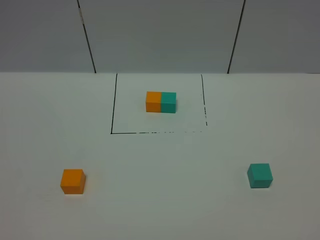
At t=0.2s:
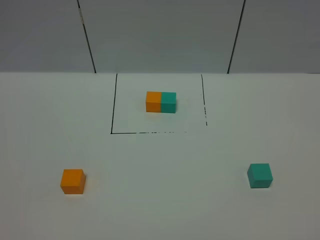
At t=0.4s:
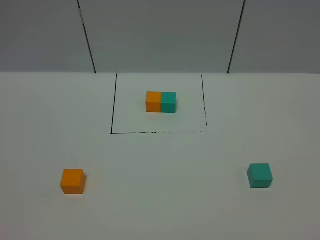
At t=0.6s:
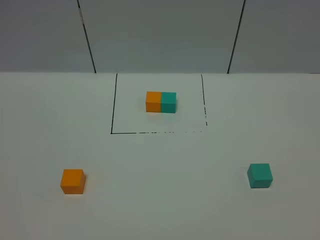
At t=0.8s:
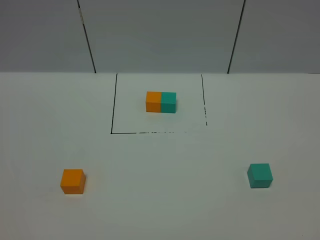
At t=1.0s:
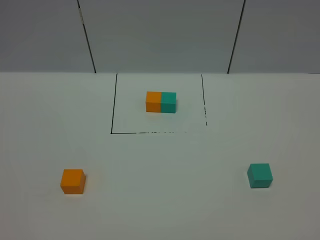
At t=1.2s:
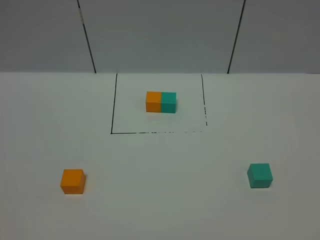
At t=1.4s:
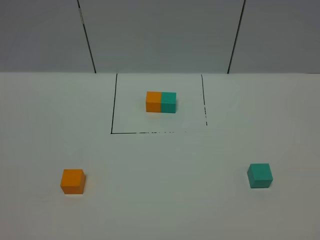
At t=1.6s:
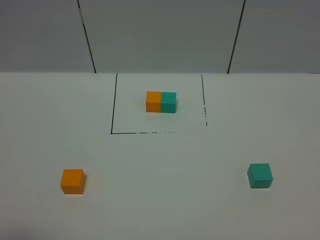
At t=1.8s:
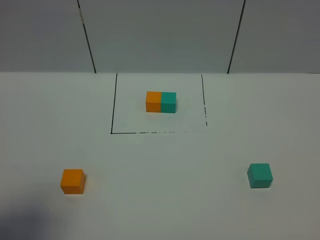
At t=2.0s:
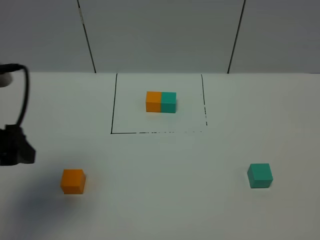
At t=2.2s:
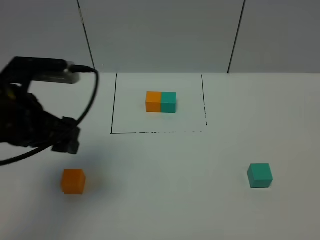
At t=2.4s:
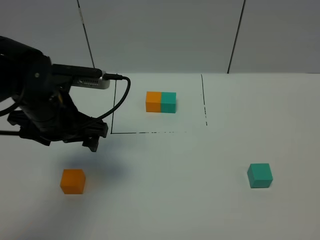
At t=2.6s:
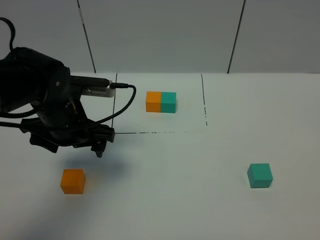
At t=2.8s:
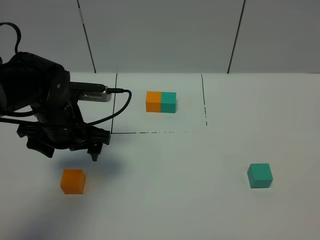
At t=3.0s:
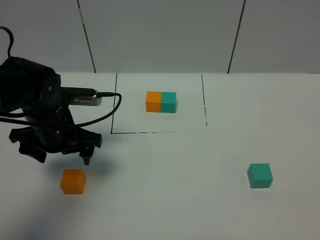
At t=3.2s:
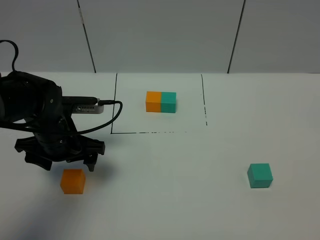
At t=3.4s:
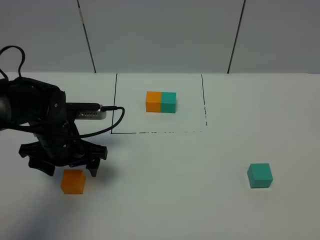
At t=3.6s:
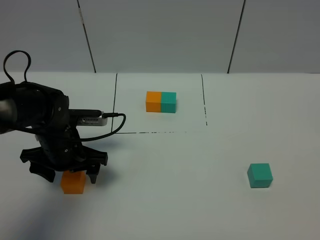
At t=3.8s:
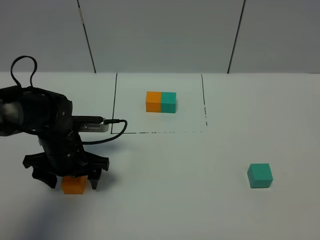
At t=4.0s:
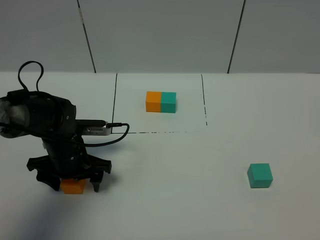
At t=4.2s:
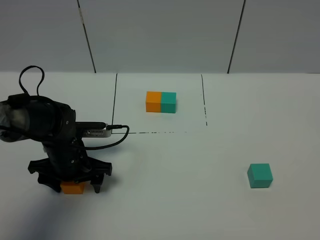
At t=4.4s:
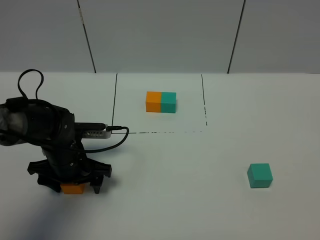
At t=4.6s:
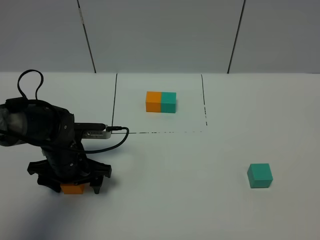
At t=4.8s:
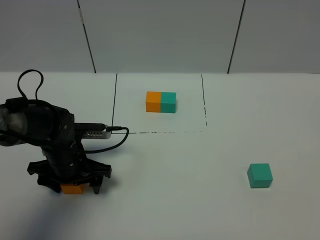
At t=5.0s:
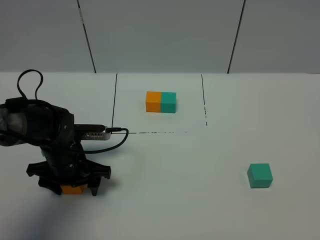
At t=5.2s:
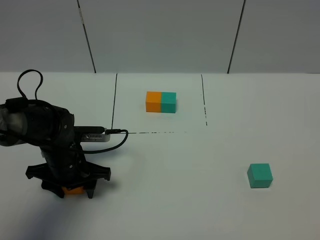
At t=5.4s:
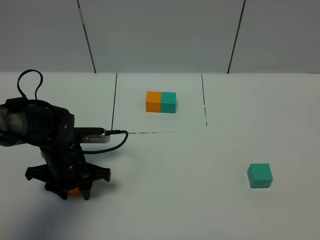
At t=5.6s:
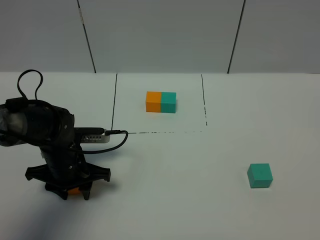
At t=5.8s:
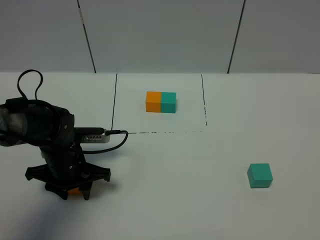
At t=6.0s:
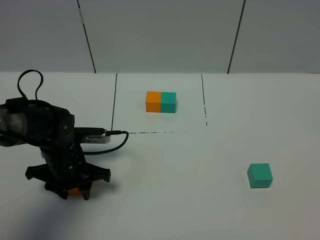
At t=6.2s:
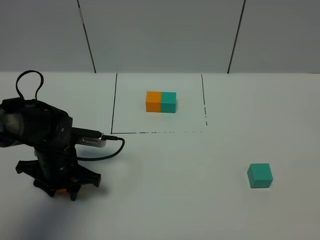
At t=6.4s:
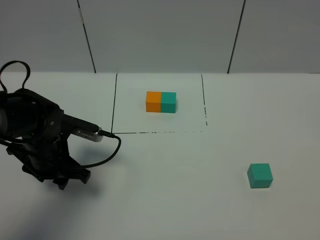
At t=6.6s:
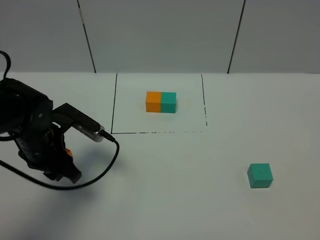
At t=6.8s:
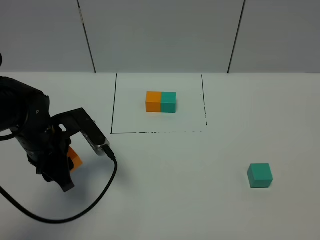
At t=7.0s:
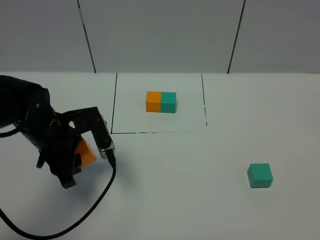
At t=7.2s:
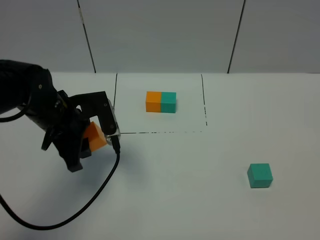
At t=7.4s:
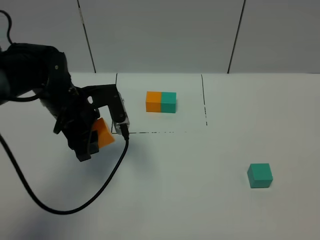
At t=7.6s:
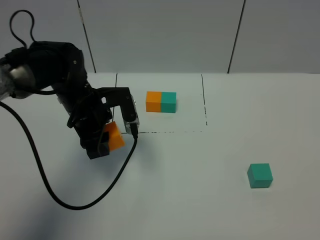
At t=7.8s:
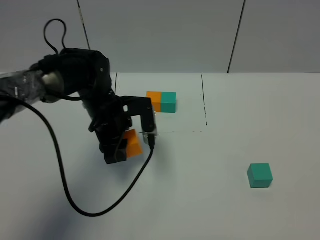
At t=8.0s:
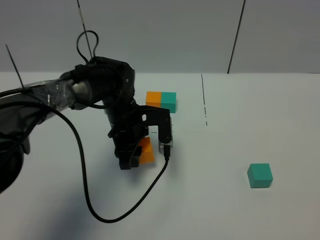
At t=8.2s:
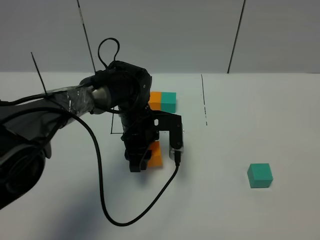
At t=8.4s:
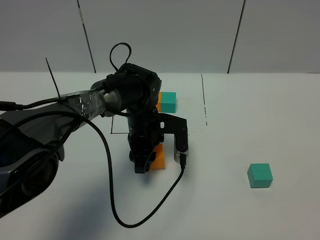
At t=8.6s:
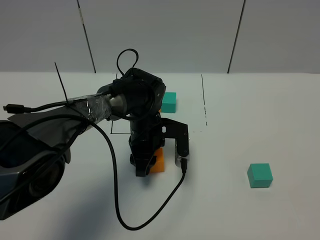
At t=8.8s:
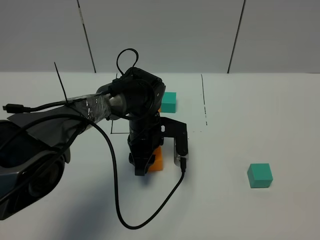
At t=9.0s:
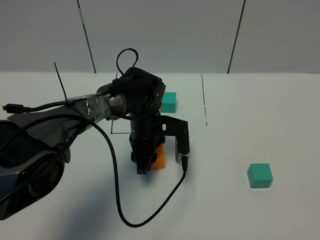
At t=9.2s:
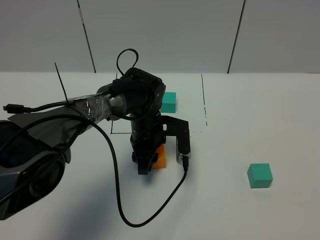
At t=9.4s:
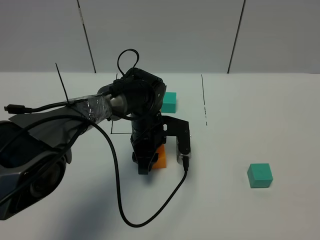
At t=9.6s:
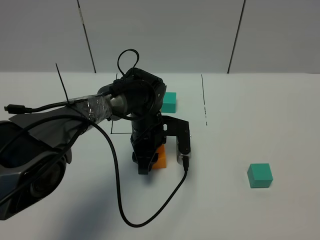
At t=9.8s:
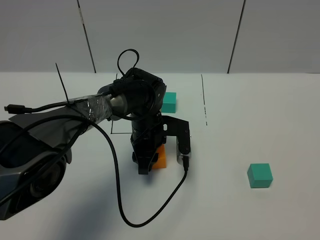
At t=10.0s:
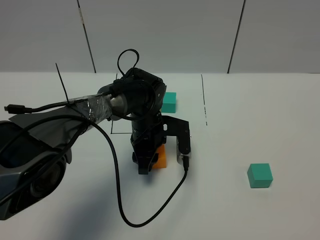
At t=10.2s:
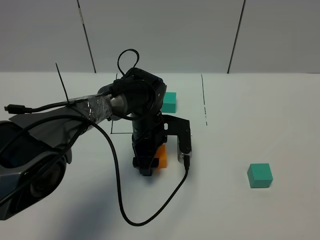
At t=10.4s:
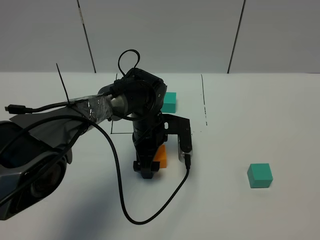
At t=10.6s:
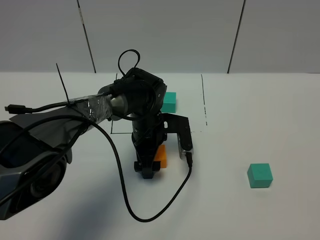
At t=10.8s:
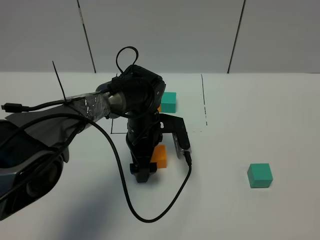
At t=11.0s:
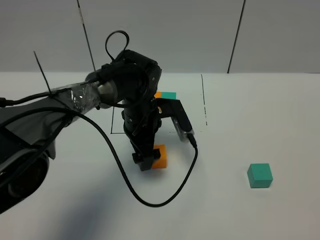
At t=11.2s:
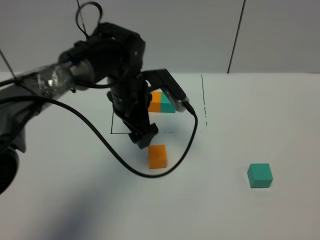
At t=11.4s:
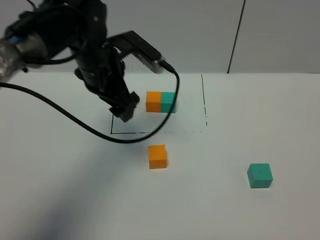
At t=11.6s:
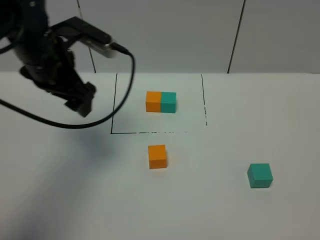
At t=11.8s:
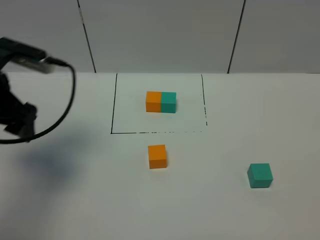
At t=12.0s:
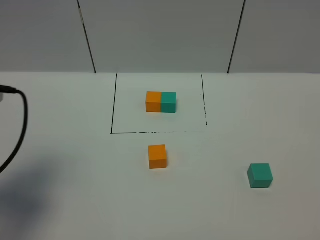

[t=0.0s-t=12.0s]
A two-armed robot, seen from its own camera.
Task of the whole recording: According to the building block template in front, assemble the scattered blocks together.
Step, t=1.8s to t=10.8s: Put the orange cube in the center of the table.
t=1.6s to t=3.0s: The left gripper shifts roughly 30 cm forward and downward.
t=3.0s to t=4.4s: The left gripper shifts about 10 cm downward.
t=4.4s to t=6.0s: The left gripper closes.
t=6.0s to t=7.6s: The left gripper shifts about 10 cm upward and forward.
t=7.6s to t=9.0s: The left gripper goes some 15 cm to the right and downward.
t=9.0s to t=10.4s: The left gripper opens.
t=10.4s to t=12.0s: The left gripper heads to the left, upward and backward, covering about 40 cm.

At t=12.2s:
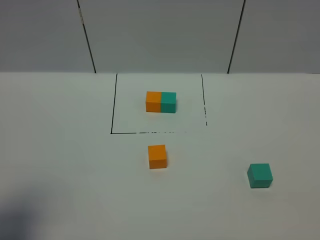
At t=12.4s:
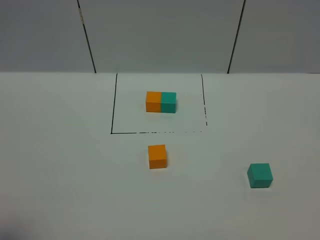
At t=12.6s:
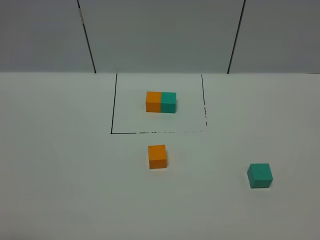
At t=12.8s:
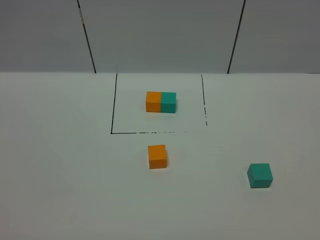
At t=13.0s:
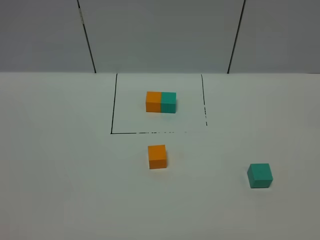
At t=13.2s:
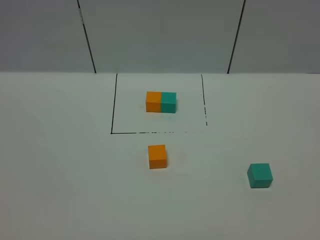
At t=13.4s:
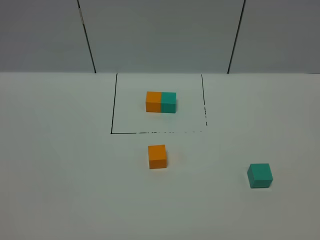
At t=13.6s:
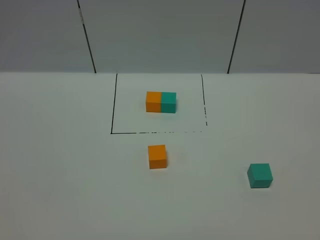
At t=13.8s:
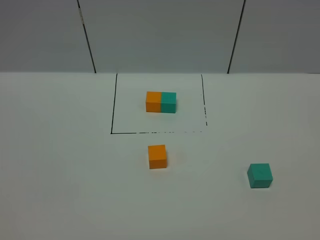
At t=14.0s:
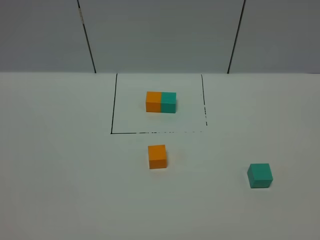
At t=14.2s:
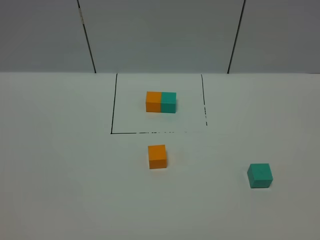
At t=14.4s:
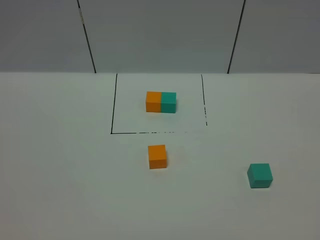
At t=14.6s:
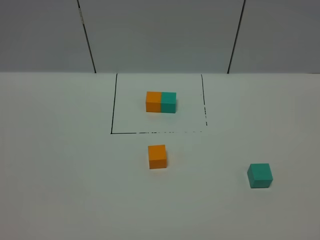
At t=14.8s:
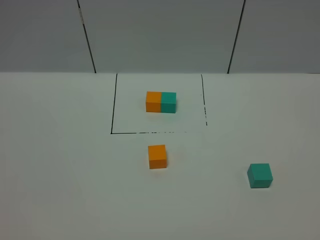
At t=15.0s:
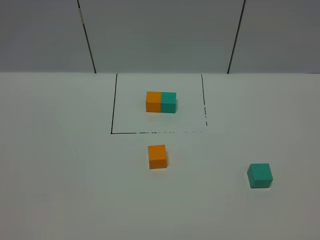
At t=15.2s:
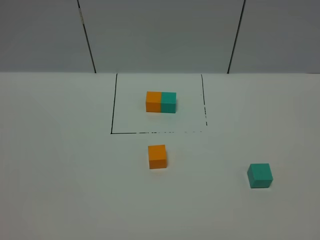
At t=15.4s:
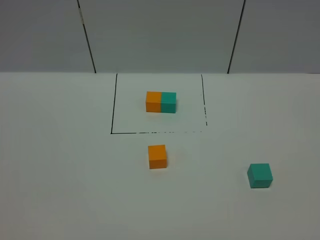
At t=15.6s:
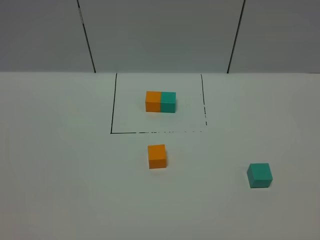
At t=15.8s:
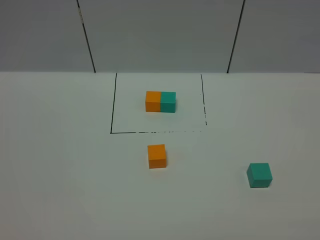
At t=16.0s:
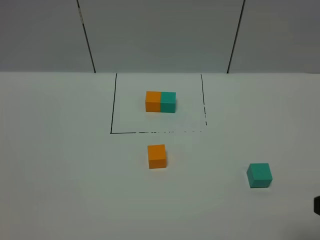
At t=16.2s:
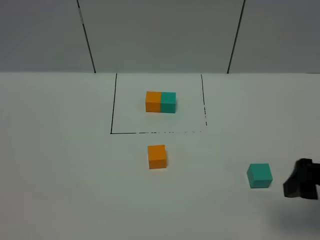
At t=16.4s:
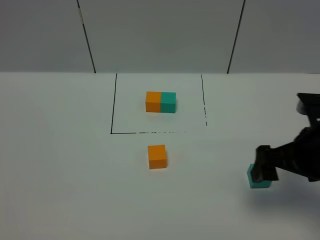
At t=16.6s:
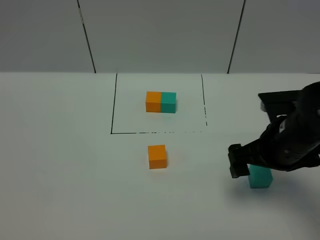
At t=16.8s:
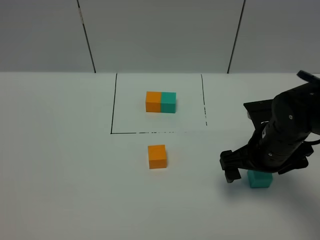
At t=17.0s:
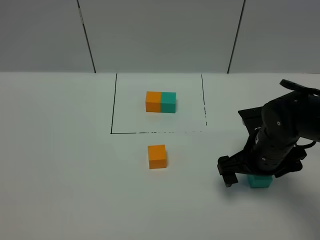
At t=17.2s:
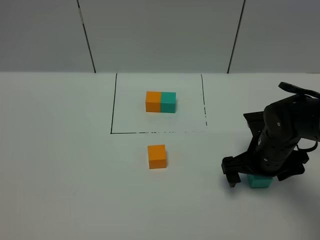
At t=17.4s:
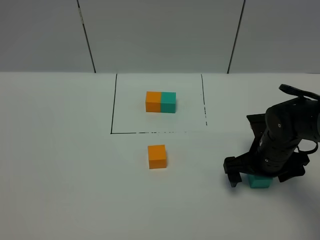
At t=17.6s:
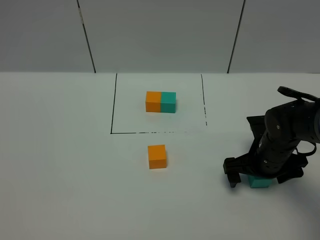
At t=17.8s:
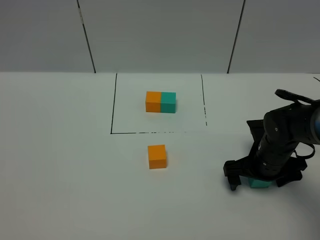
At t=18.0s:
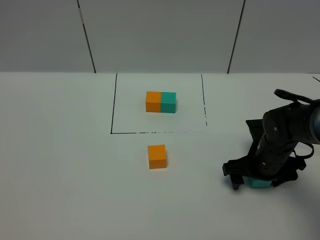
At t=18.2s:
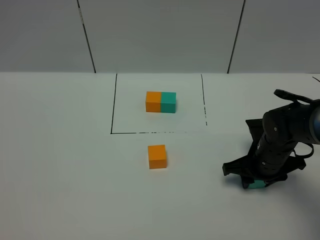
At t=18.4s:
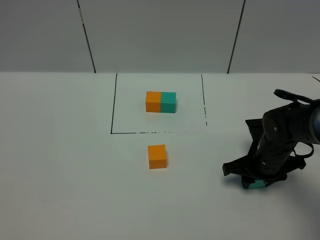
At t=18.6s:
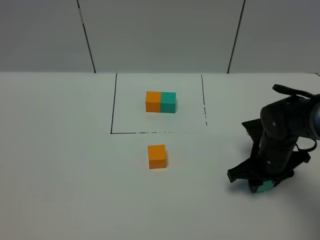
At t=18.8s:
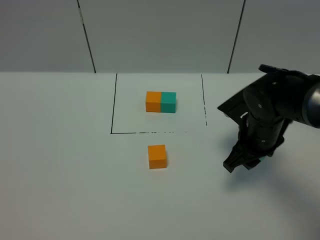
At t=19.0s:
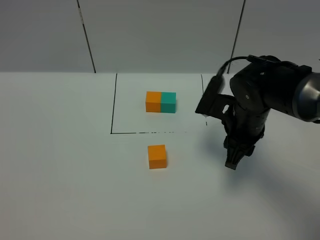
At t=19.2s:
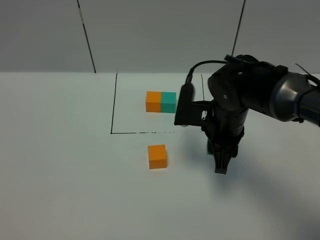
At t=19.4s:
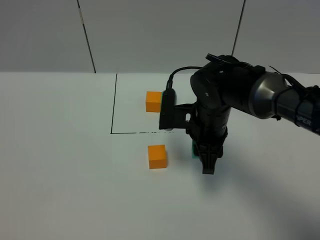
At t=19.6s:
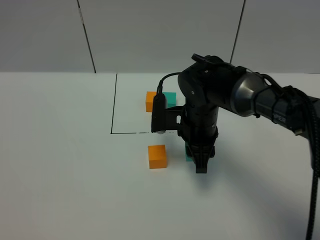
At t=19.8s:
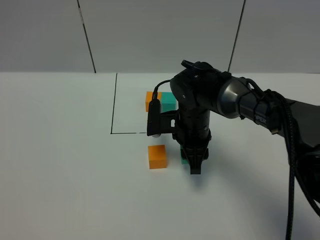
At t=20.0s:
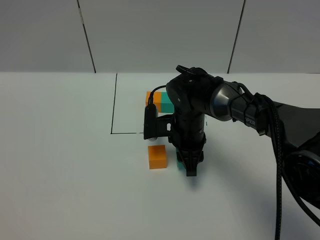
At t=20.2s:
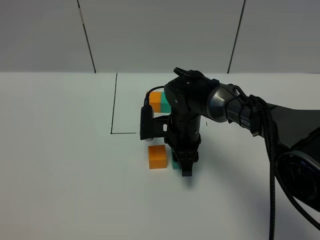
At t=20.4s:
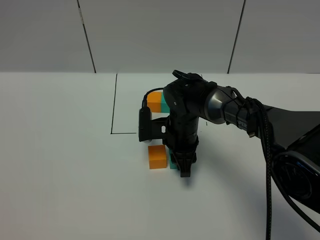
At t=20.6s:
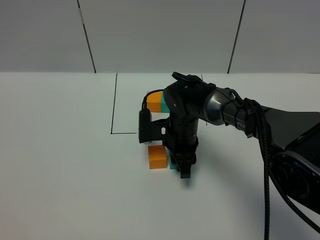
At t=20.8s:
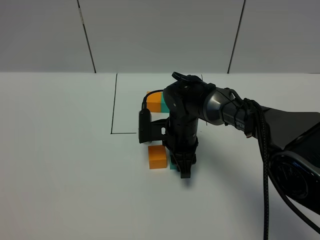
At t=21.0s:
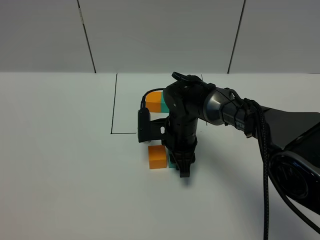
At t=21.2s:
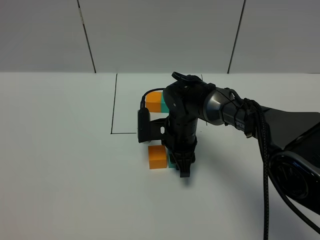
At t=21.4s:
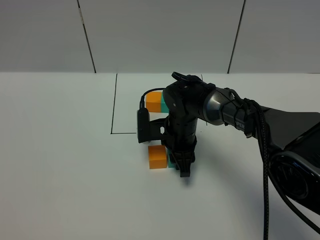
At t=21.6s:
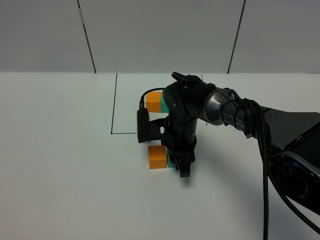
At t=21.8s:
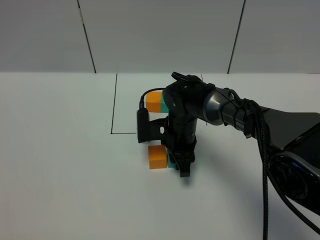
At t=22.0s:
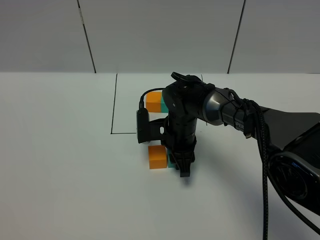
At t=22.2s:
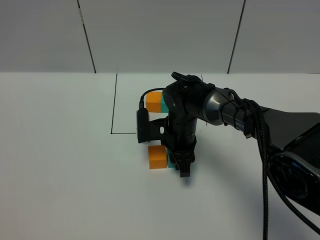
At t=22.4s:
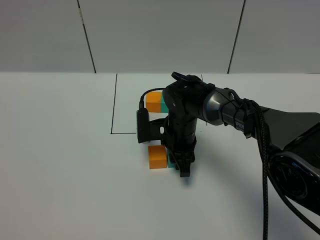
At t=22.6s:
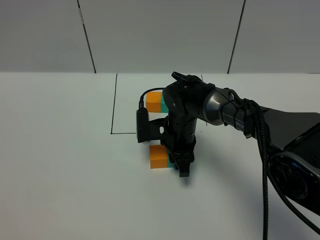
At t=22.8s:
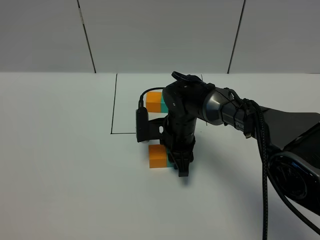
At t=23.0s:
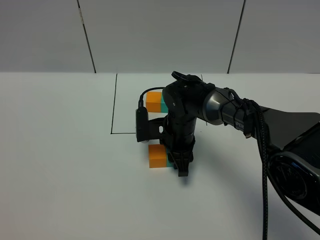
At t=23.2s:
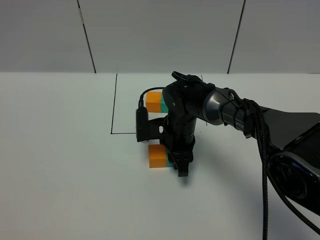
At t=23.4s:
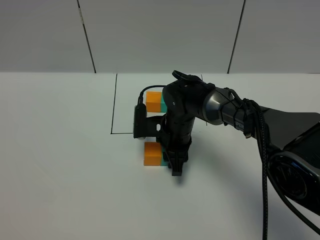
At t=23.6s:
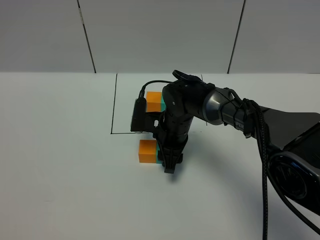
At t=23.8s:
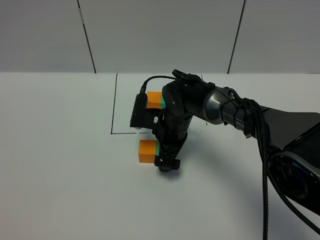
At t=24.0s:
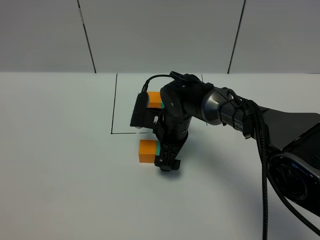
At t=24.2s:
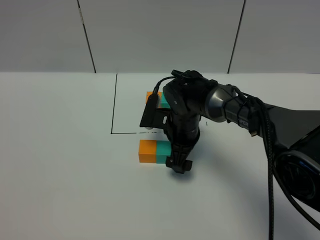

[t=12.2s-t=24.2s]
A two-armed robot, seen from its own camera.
Task of the whole recording: According to the building block template in front, assemble the scattered blocks together.
Step, t=12.2s to t=23.8s: Put the green cube on the right of the orange cube.
t=12.2s to t=13.8s: The left gripper heads backward, covering approximately 15 cm.
t=13.8s to t=15.2s: Both grippers stay put.
t=15.2s to t=16.6s: The right gripper shifts approximately 30 cm forward.
t=16.6s to t=18.2s: The right gripper goes roughly 10 cm downward, and closes up.
t=18.2s to t=19.8s: The right gripper moves to the left and forward, about 15 cm.
t=19.8s to t=21.2s: The grippers move only a little.
t=21.2s to t=22.6s: The two grippers keep their place.
t=22.6s to t=24.2s: The right gripper opens.
